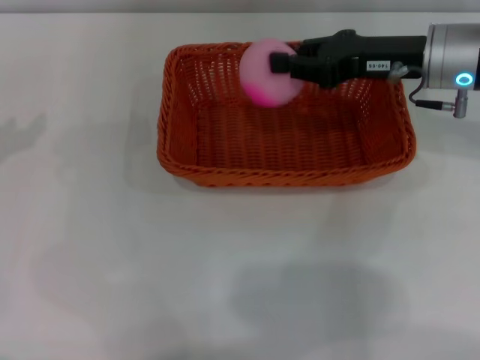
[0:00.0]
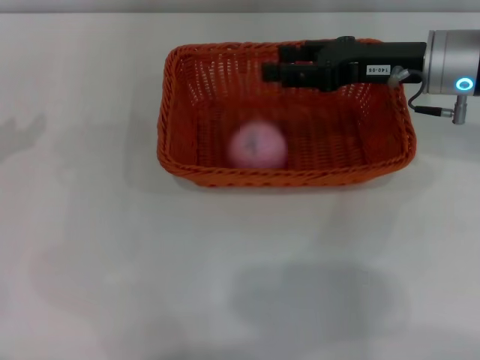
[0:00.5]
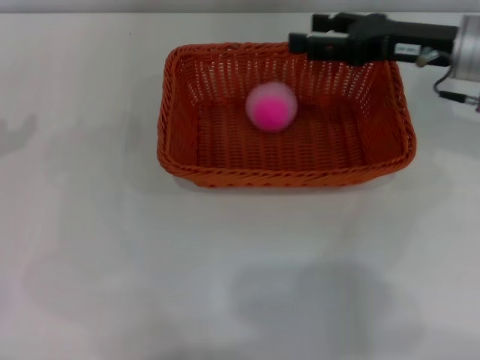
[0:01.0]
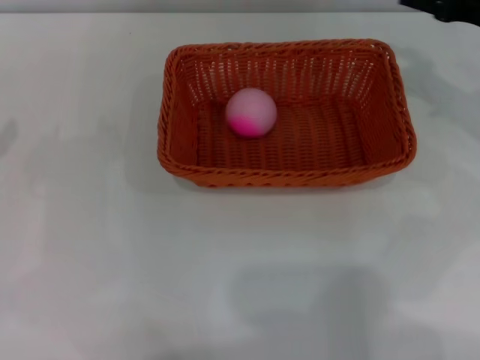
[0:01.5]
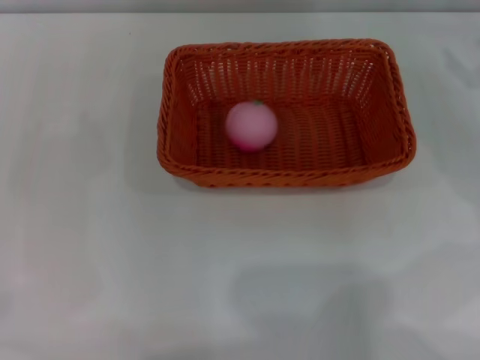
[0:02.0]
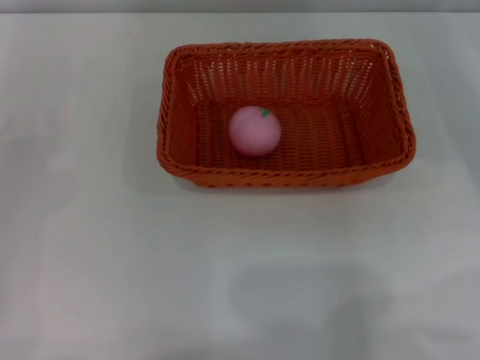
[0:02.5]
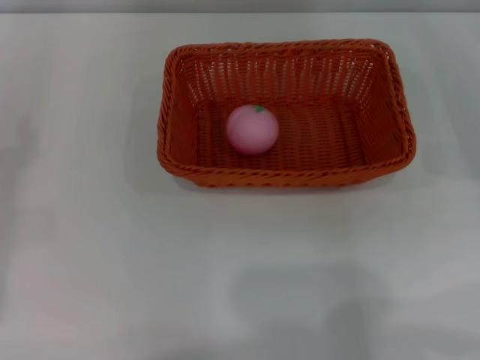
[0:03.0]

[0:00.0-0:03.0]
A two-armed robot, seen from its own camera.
0:00.0 to 0:01.5: The right gripper moves to the right, roughly 10 cm, and opens its fingers.
0:01.5 to 0:03.0: The left gripper heads downward, covering about 10 cm. The right gripper heads to the right, downward and backward, covering about 15 cm.

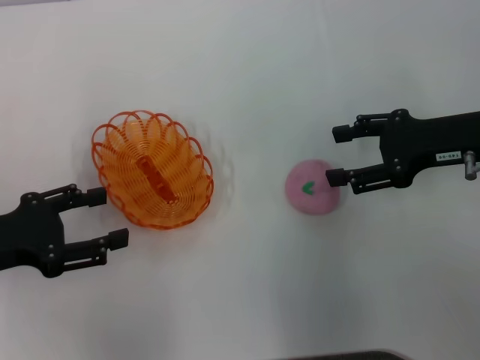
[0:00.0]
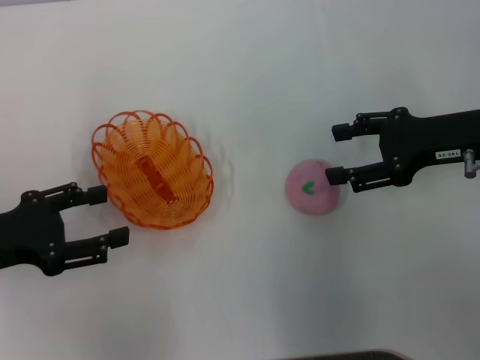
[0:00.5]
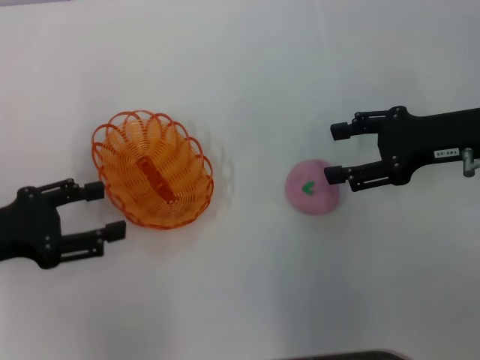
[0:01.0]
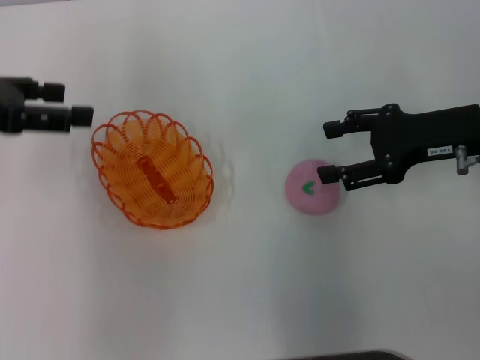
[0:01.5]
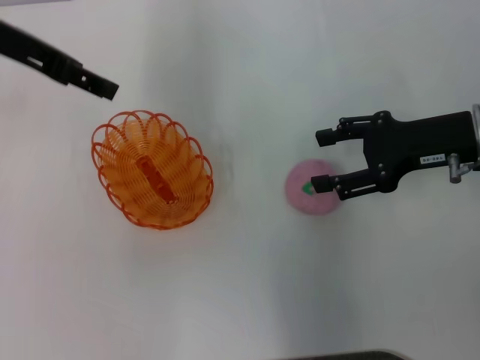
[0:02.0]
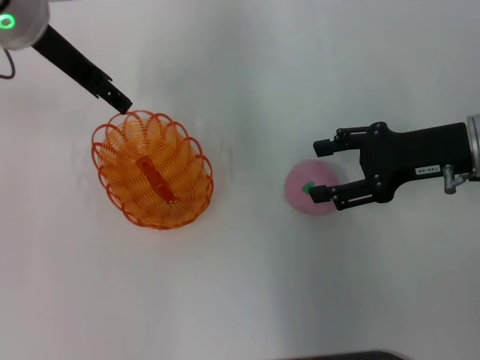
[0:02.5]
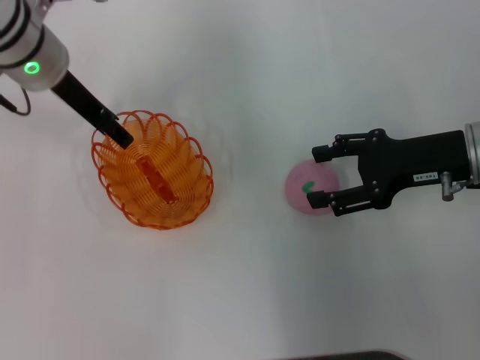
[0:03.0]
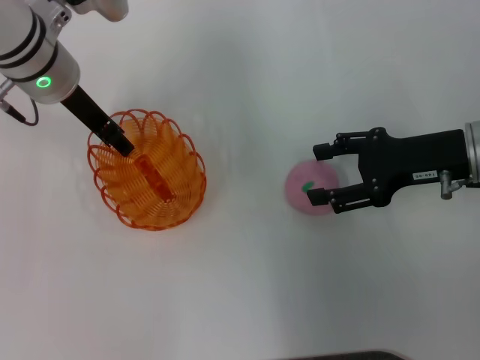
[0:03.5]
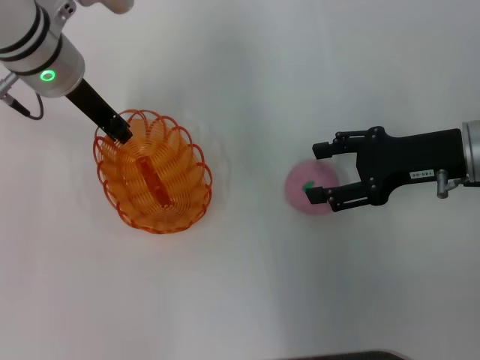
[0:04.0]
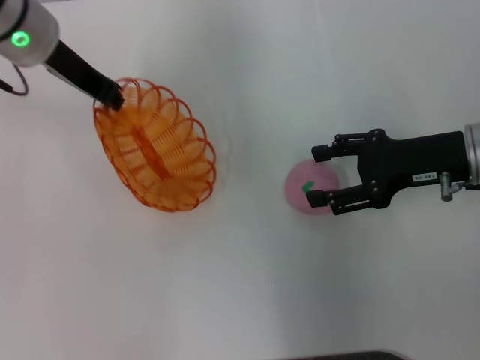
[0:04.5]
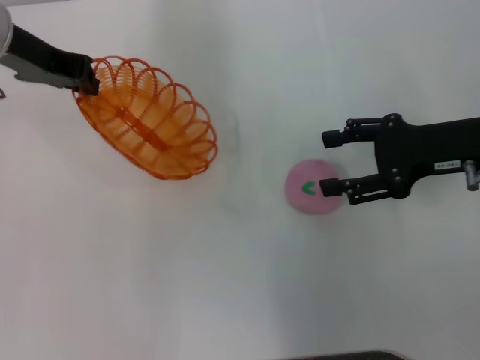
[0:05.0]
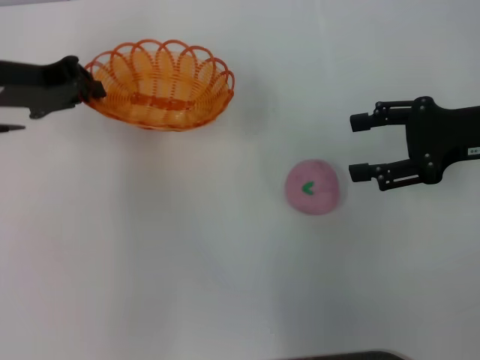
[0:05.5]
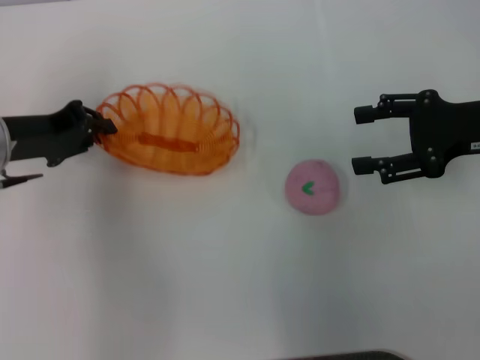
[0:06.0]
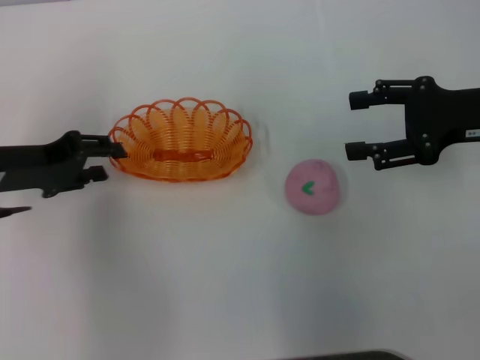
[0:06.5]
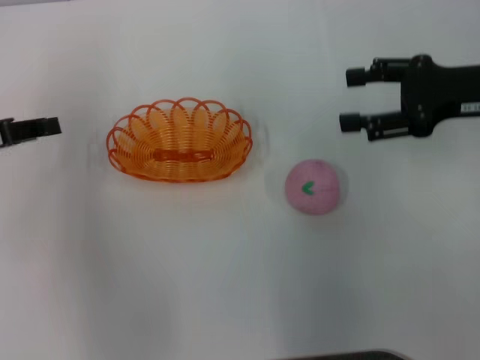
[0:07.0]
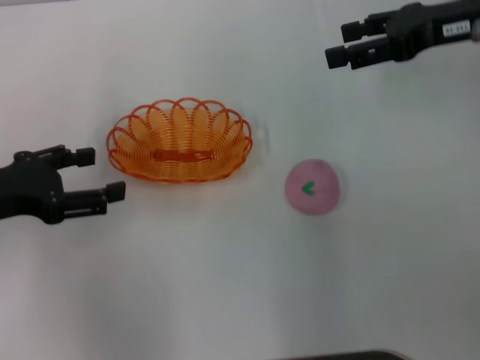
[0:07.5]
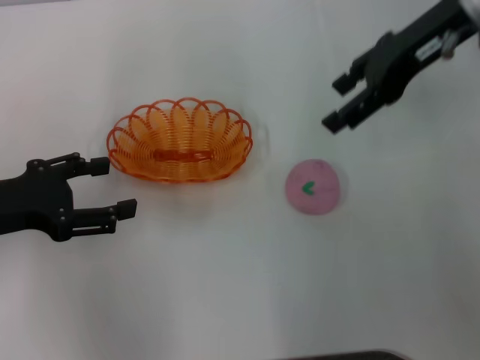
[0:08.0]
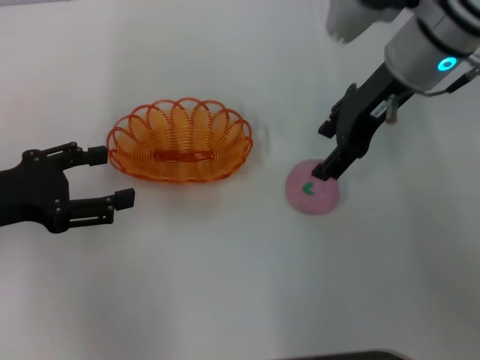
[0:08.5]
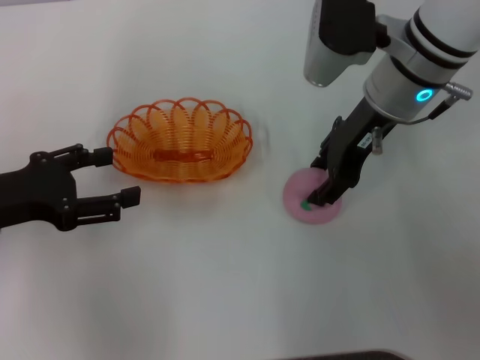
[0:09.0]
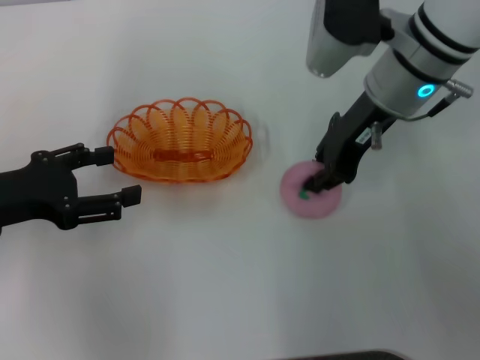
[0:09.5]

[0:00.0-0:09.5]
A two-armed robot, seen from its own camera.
Step, 0:00.0 to 0:04.5: Pick up the basket with the left gripper.
Step, 0:05.0 to 0:07.5: Place the basket in the center of view with the left gripper.
0:00.0 to 0:02.0: The left gripper heads forward, upward and to the right, covering some 25 cm.
0:02.0 to 0:04.0: The left gripper heads downward and to the right, covering approximately 10 cm, and closes its fingers.
0:04.0 to 0:05.5: The right gripper changes place by some 5 cm. The left gripper moves to the left, some 10 cm.
0:05.5 to 0:07.5: The right gripper is displaced forward and upward by roughly 10 cm. The left gripper goes some 10 cm backward, and opens.
0:07.5 to 0:09.5: The right gripper shifts some 10 cm to the left, and closes up.

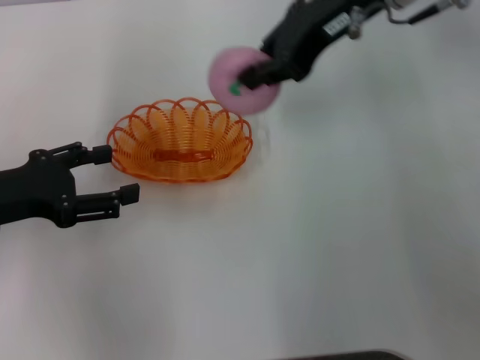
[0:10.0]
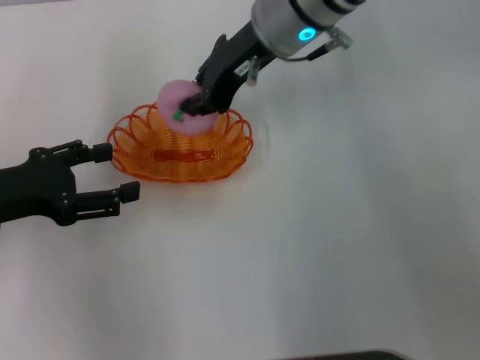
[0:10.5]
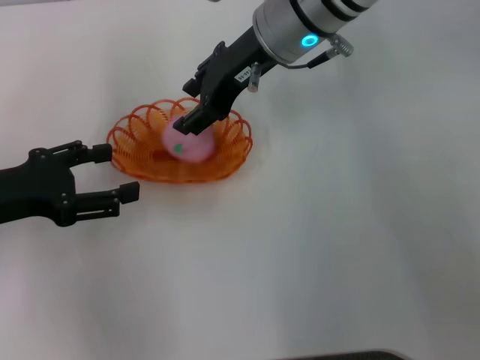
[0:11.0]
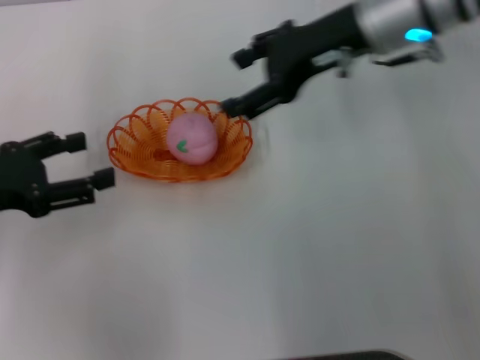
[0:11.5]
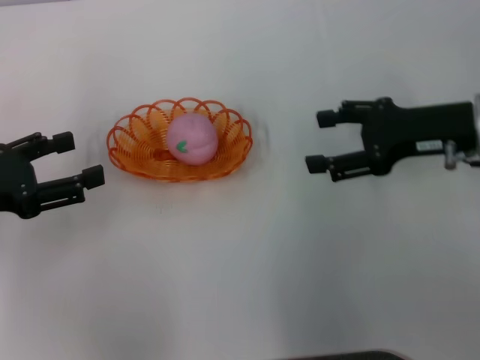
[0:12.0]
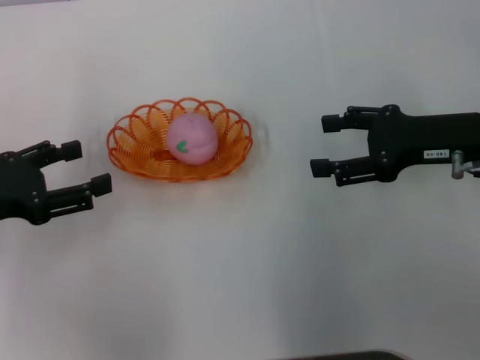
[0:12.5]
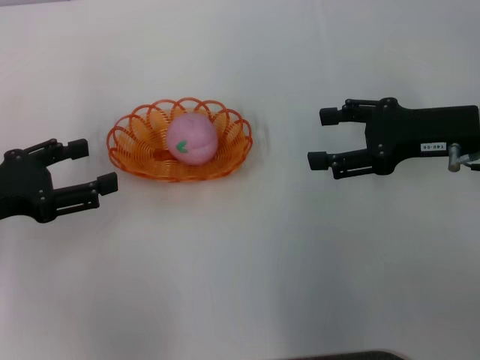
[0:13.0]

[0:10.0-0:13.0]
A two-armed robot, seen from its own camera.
Step, 0:10.0 to 0:12.0: Place the peach into the basket with the right gripper.
0:10.0 to 0:11.5: The right gripper heads downward, covering approximately 5 cm, goes to the left and returns, some 5 cm each way, and opens its fingers.
0:11.5 to 0:13.0: The right gripper is displaced to the right, downward and backward by about 15 cm.
